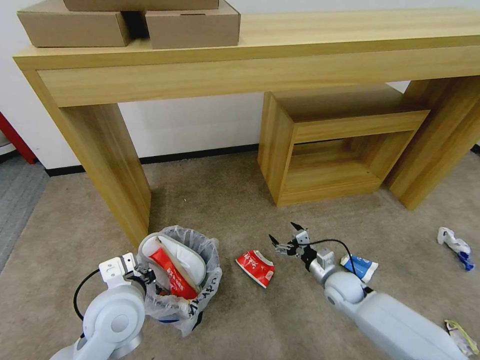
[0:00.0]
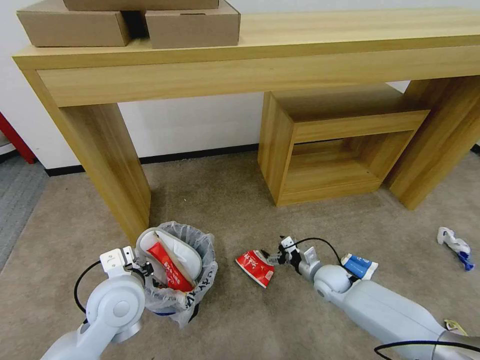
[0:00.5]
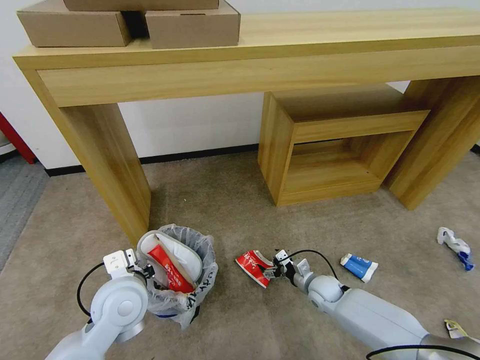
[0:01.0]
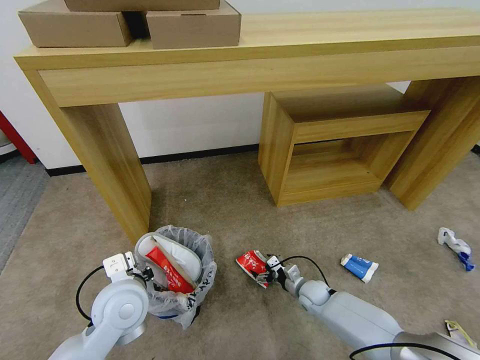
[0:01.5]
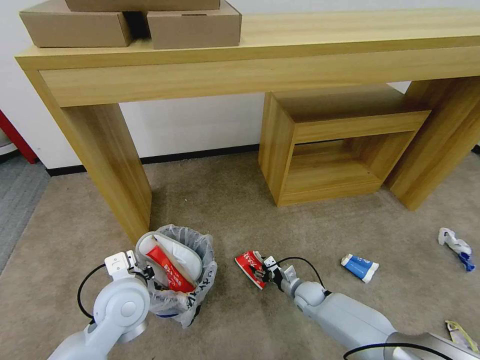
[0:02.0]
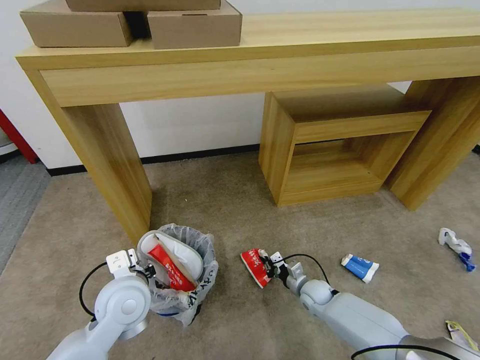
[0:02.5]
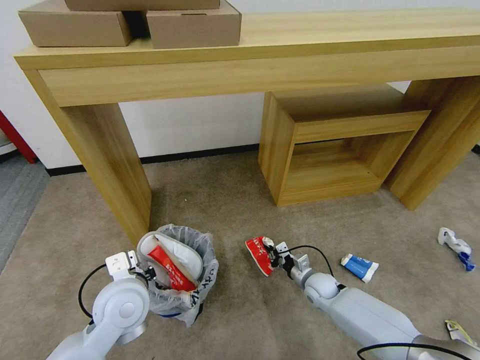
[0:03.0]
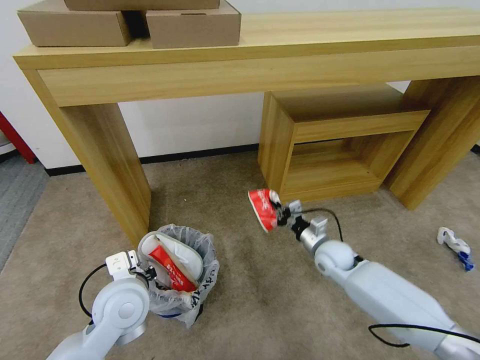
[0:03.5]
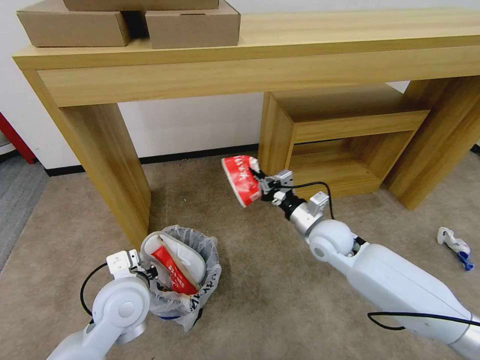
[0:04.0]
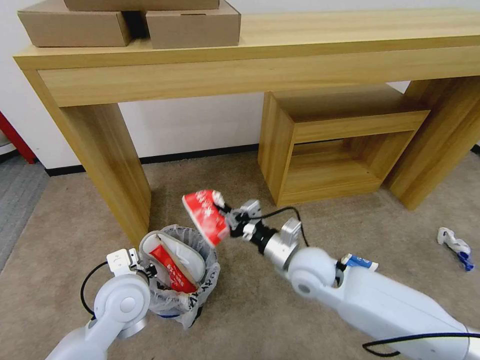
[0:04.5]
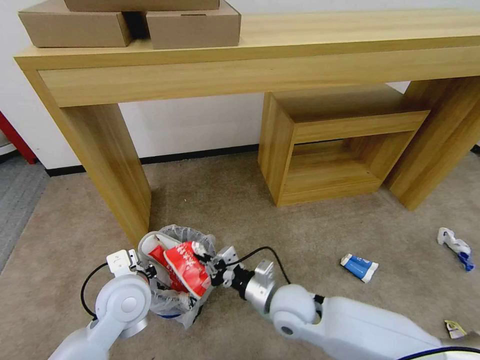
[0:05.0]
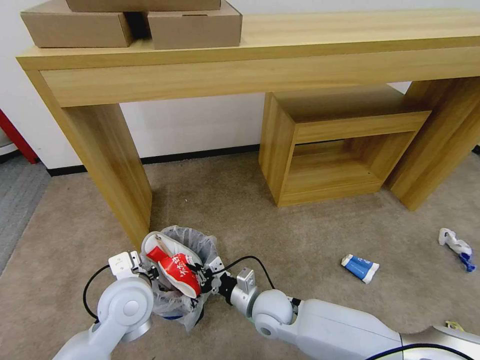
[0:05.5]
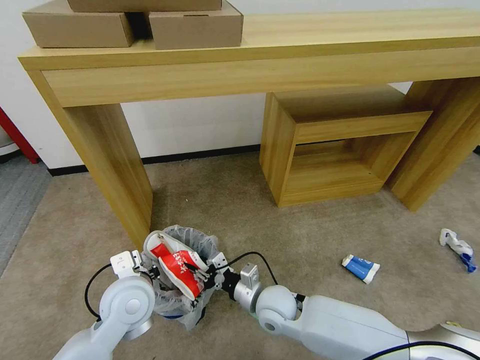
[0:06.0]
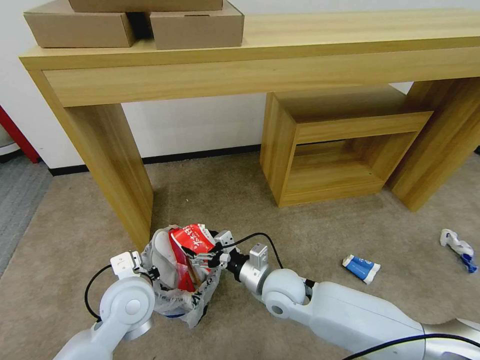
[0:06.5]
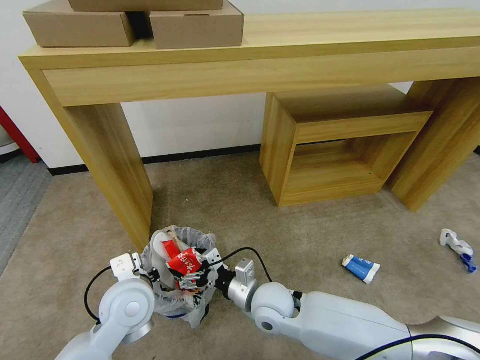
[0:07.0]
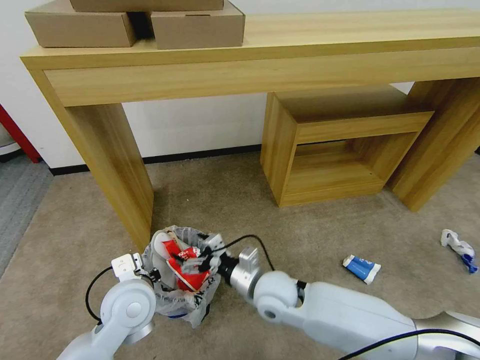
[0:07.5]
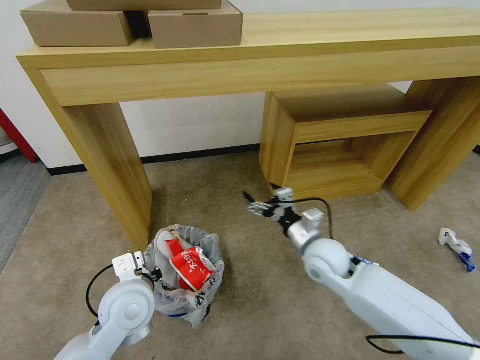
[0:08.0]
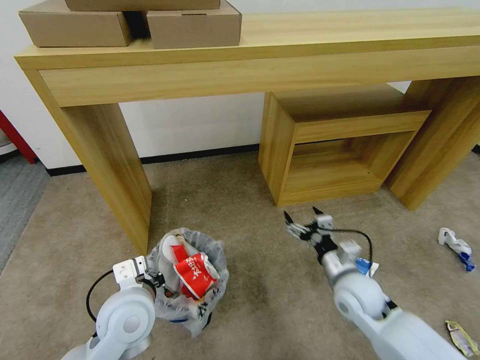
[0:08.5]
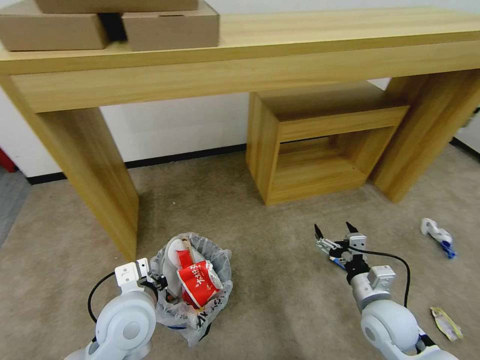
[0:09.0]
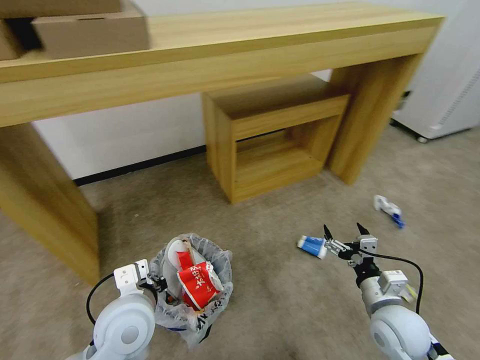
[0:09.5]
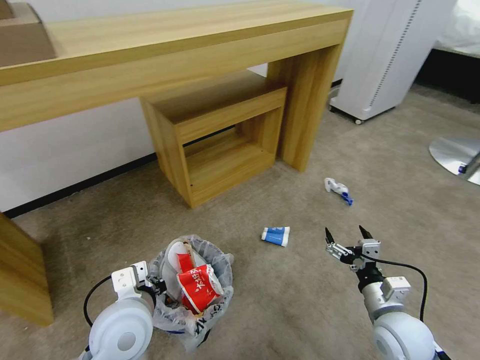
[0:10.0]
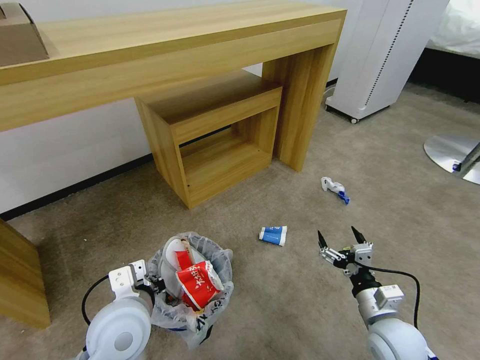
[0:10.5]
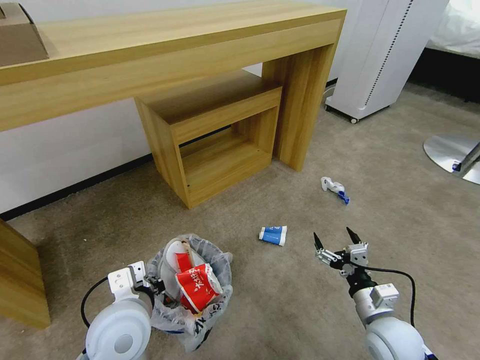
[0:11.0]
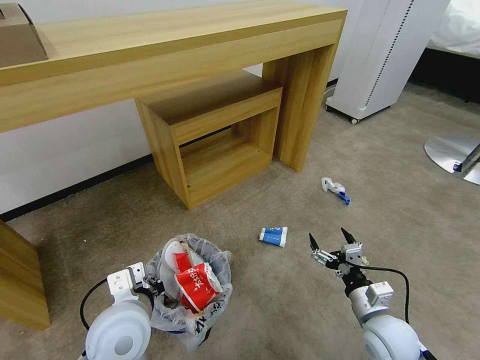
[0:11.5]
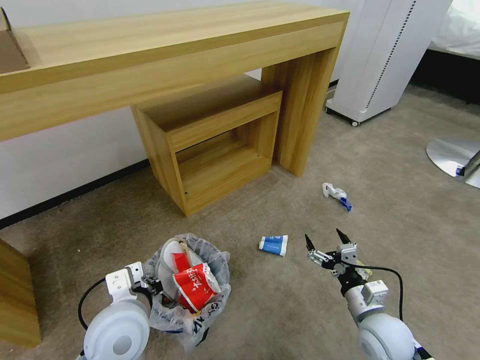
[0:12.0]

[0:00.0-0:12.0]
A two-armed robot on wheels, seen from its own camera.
Task of the whole recording: Pick up the trash bin and place the garbage on the floor into it.
0:00.0 to 0:02.0: The right gripper goes about 10 cm downward and to the left, and closes.
0:02.0 to 0:04.0: The right gripper heads upward, covering approximately 30 cm, and closes.
0:04.0 to 0:06.0: The right gripper is displaced to the left, backward and downward by roughly 20 cm, and opens.
0:06.0 to 0:08.0: The right gripper goes approximately 15 cm to the right, upward and forward, and opens its fingers.
0:08.0 to 0:10.0: The right gripper shifts roughly 20 cm backward and to the right.
0:10.0 to 0:12.0: There are only small adjustments of the grippers.

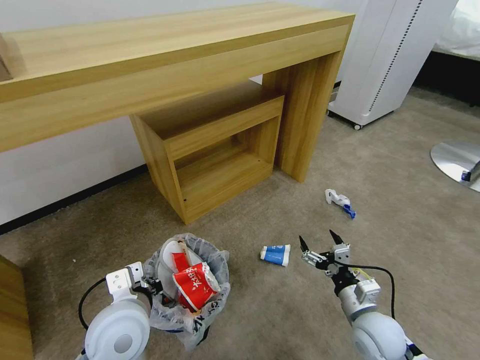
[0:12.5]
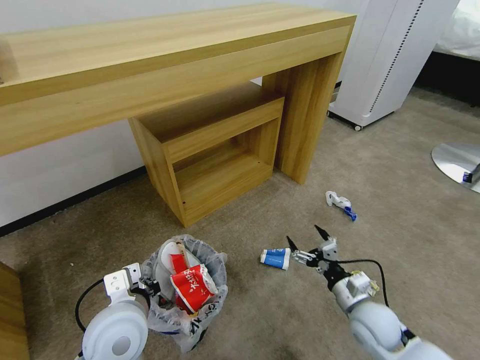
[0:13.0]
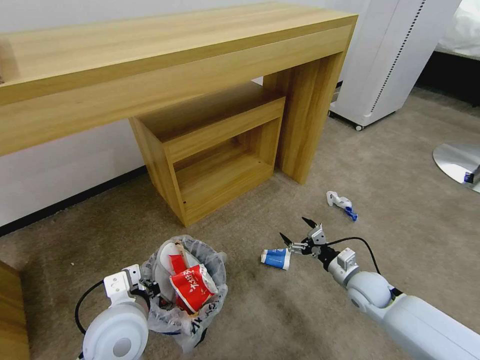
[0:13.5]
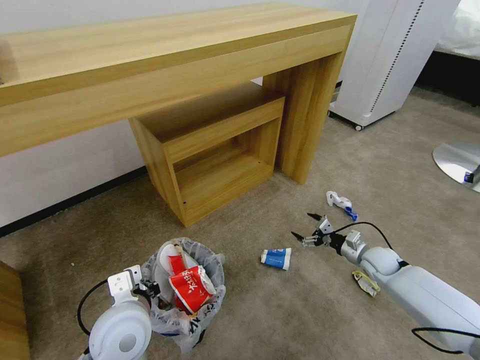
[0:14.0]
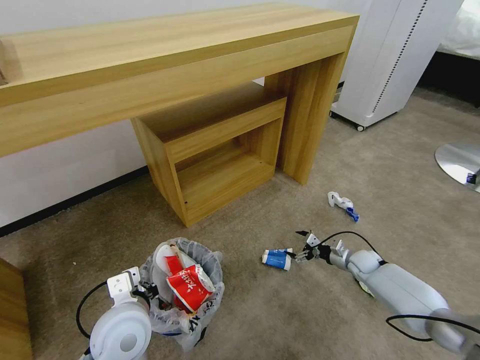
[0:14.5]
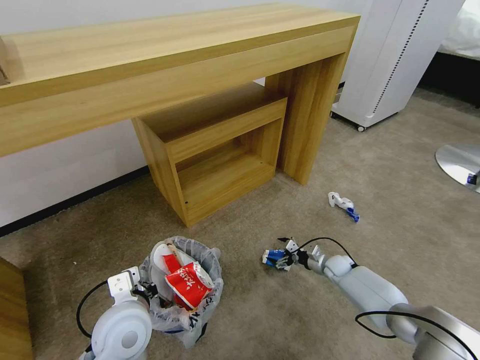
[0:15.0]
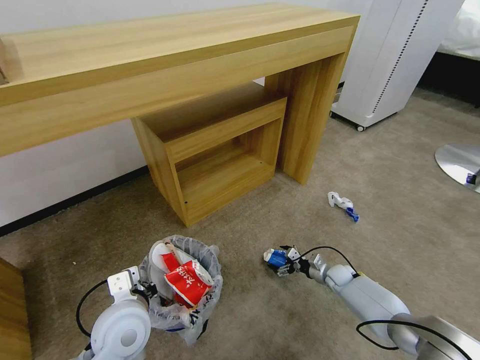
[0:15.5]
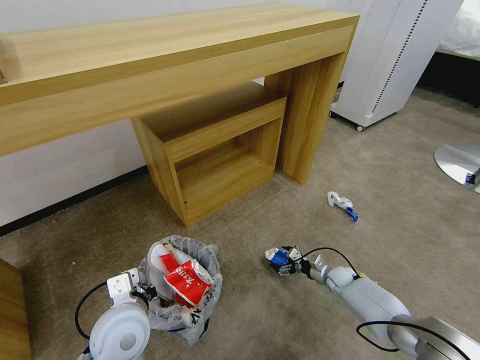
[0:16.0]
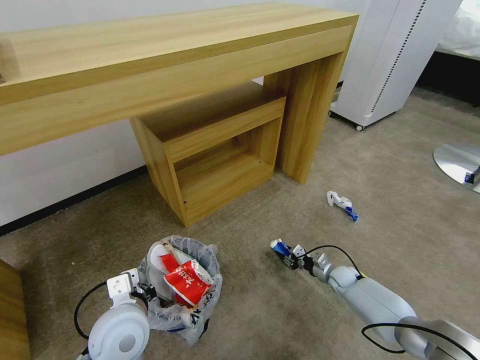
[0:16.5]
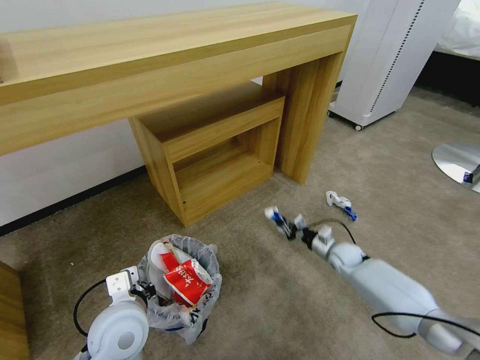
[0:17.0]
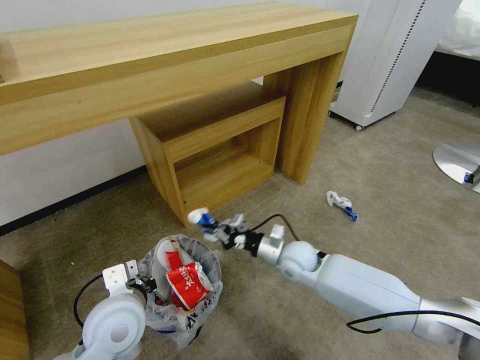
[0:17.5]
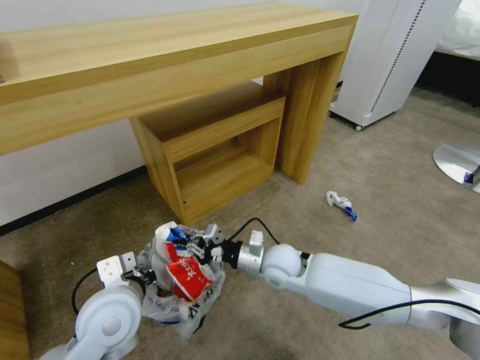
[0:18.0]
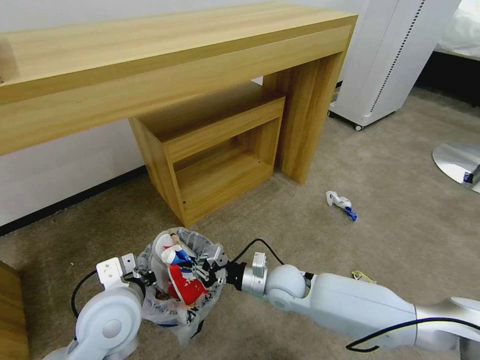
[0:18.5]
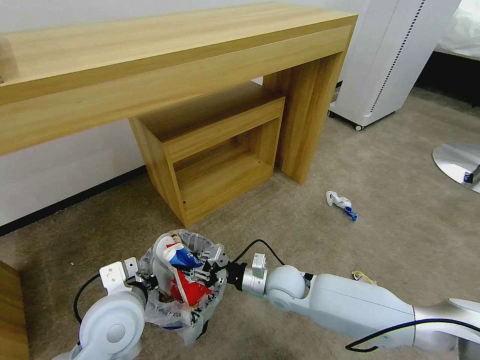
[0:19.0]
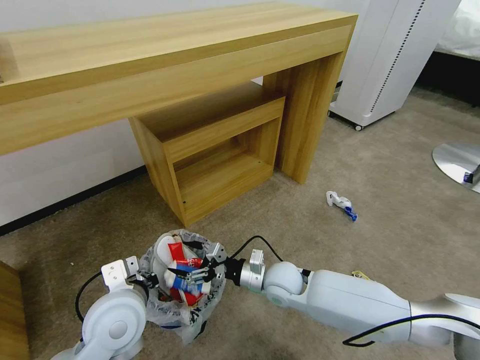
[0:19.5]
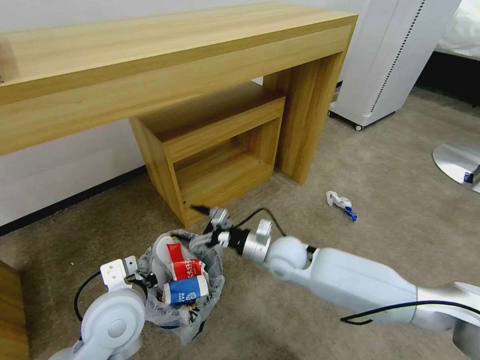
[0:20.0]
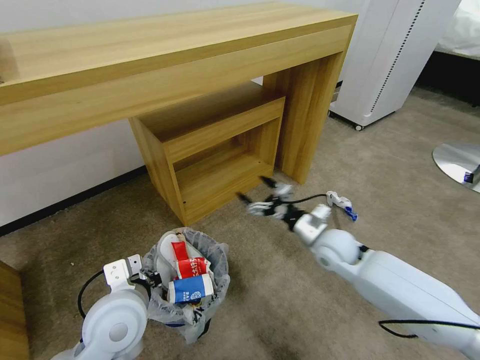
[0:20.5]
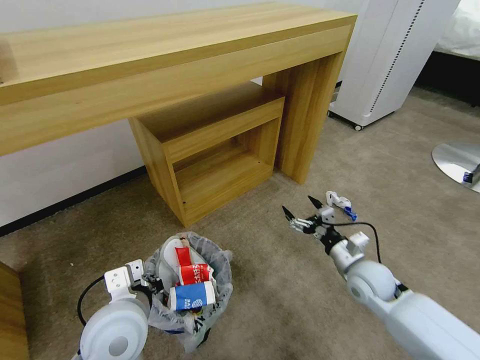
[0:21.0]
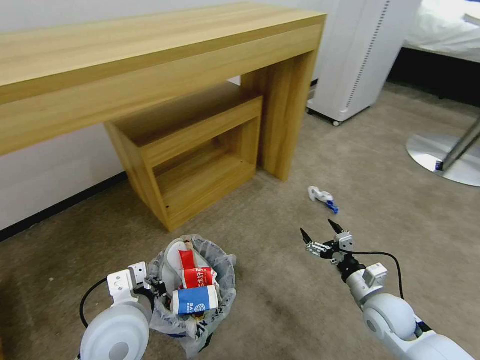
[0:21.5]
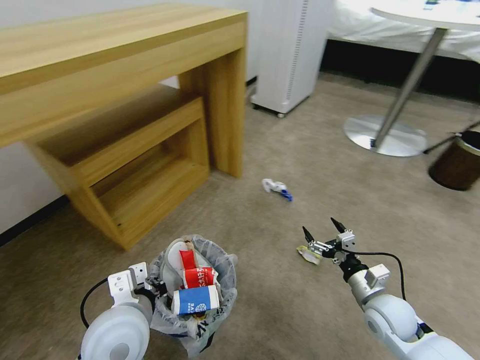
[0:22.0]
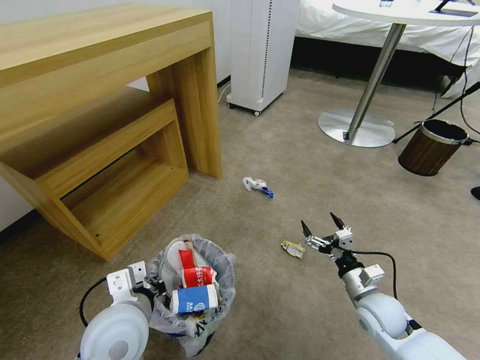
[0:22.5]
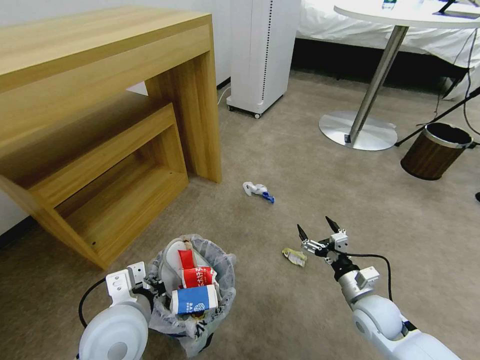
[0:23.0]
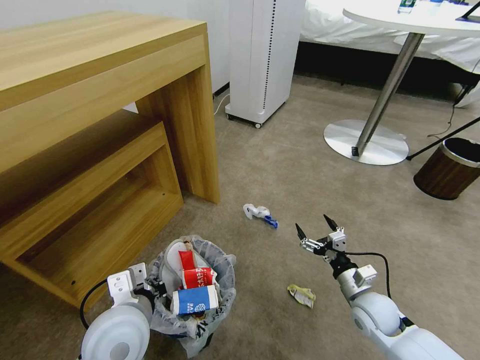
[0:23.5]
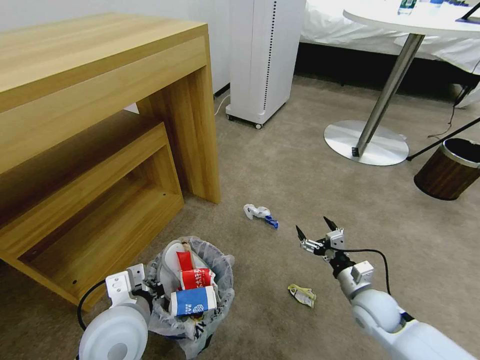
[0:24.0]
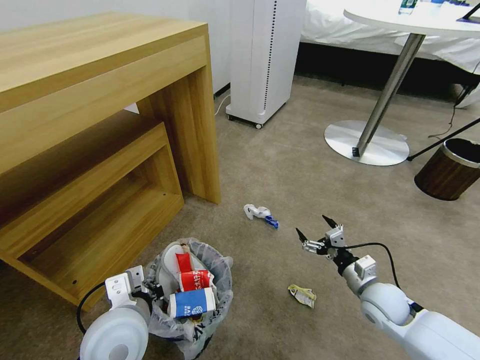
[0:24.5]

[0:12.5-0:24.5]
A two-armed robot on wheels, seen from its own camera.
Task of the whole recording: Pick up the trash bin and place the garbage on the floor into it.
0:12.5 to 0:14.5: The right gripper is displaced forward, downward and to the right by roughly 25 cm.
0:14.5 to 0:16.5: The right gripper moves downward, approximately 5 cm, and closes.
0:16.5 to 0:18.5: The right gripper goes some 30 cm to the left and upward.
0:18.5 to 0:20.5: The right gripper heads to the right, upward and forward, covering some 15 cm, and opens its fingers.
0:20.5 to 0:22.5: The right gripper moves backward, to the right and downward, some 15 cm.

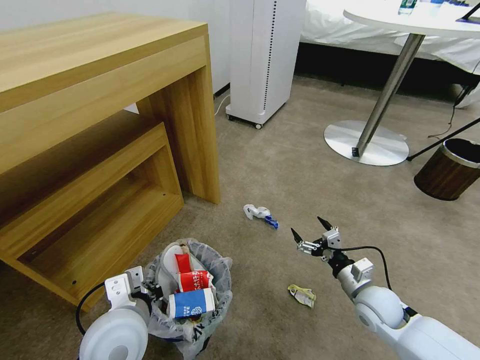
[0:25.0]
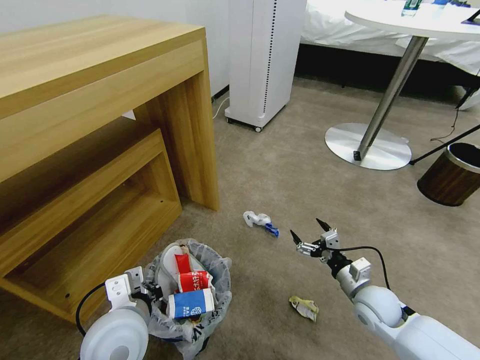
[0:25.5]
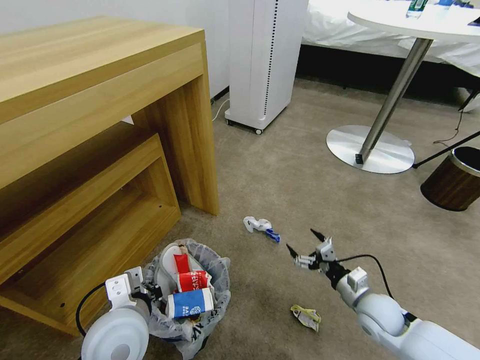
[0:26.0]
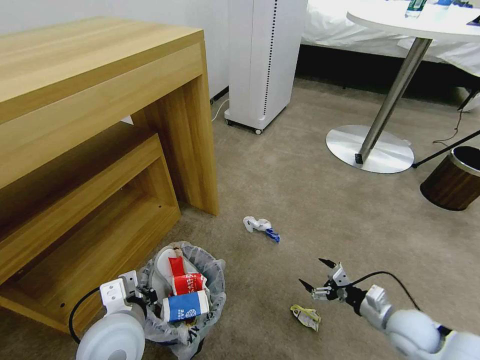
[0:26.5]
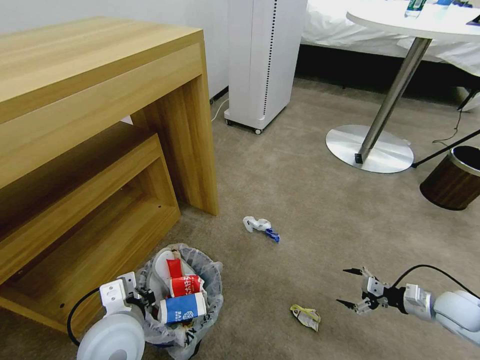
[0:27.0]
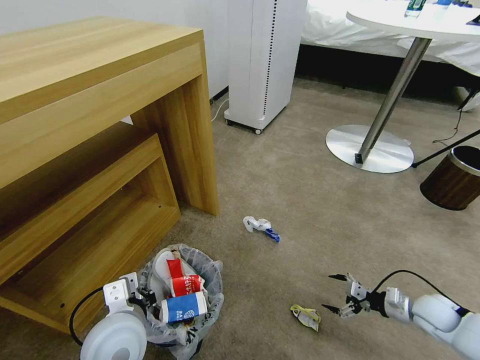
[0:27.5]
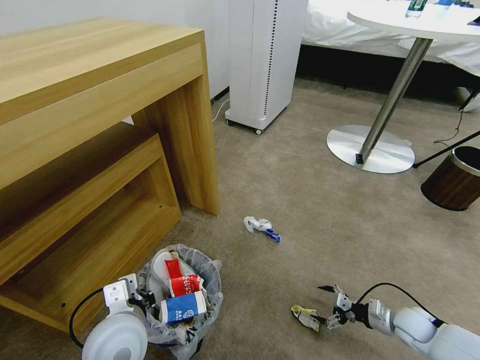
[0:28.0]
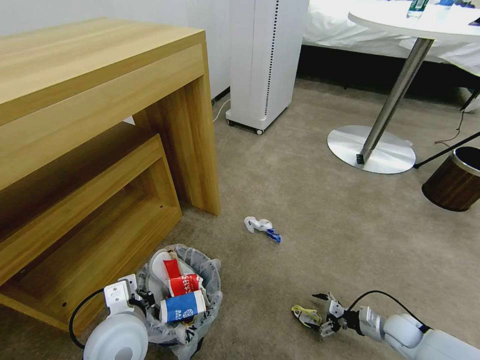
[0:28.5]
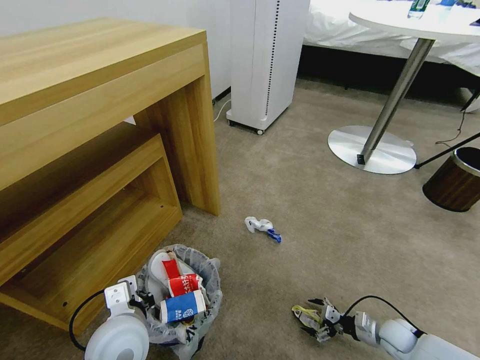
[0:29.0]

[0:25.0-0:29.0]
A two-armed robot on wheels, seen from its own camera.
Task of the whole recording: Pick up the trash bin and place the garbage on the floor into it.
0:25.0 to 0:27.0: The right gripper moves to the right, some 20 cm.
0:27.0 to 0:29.0: The right gripper is displaced downward and to the left by approximately 15 cm.
